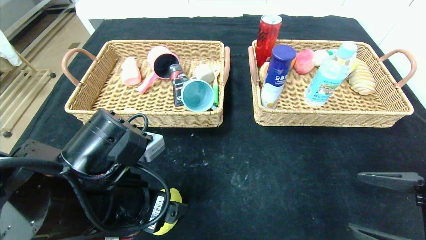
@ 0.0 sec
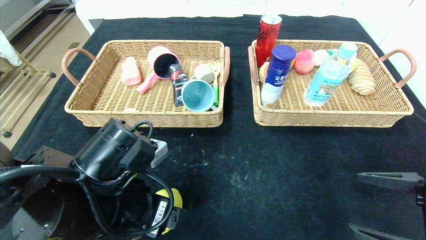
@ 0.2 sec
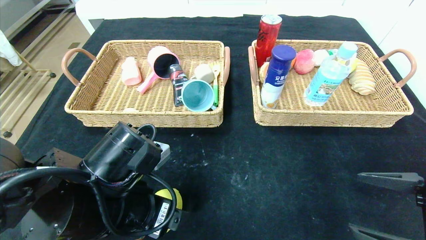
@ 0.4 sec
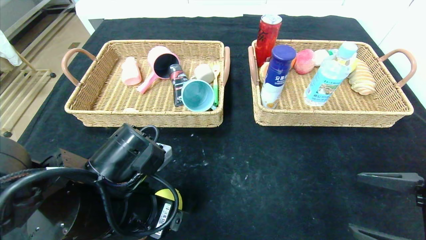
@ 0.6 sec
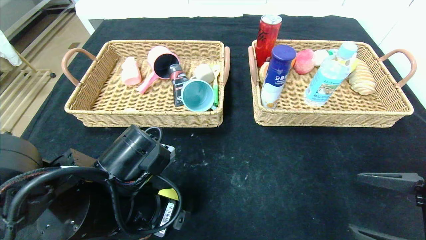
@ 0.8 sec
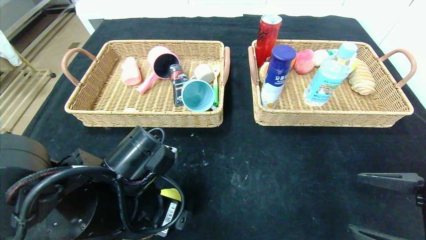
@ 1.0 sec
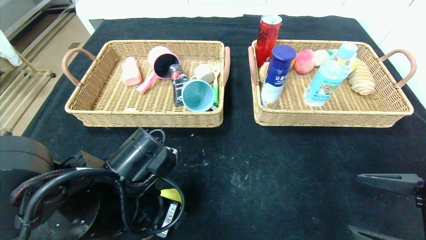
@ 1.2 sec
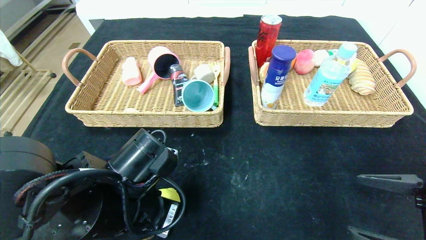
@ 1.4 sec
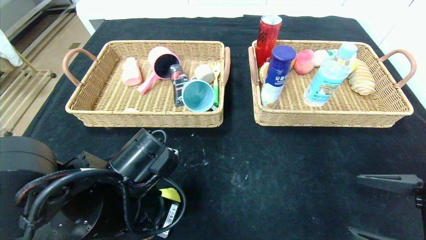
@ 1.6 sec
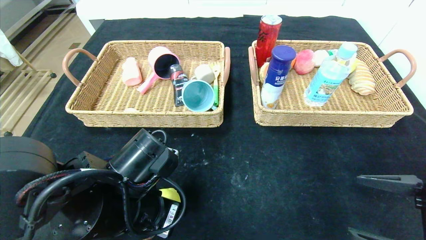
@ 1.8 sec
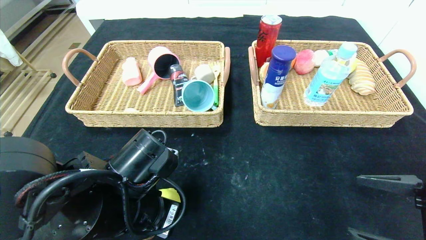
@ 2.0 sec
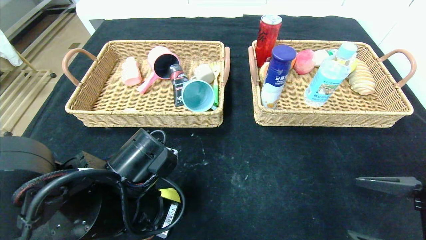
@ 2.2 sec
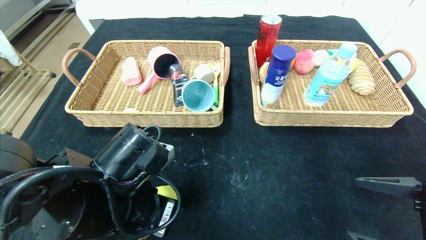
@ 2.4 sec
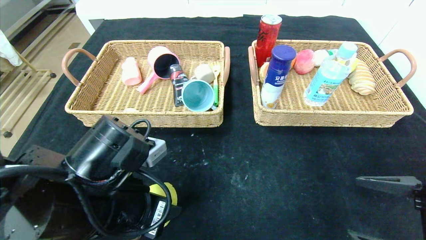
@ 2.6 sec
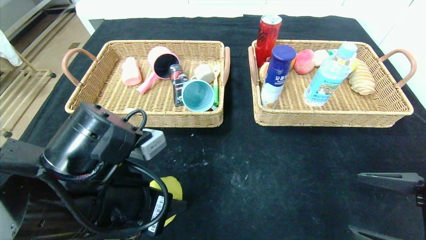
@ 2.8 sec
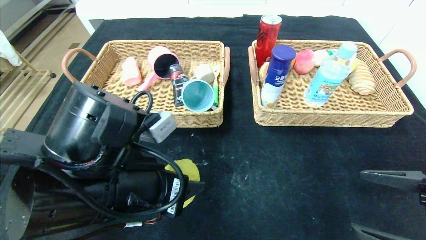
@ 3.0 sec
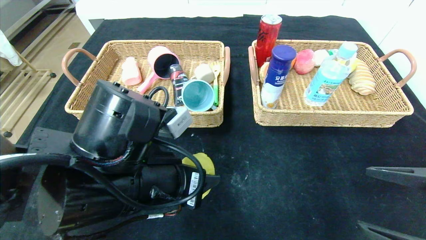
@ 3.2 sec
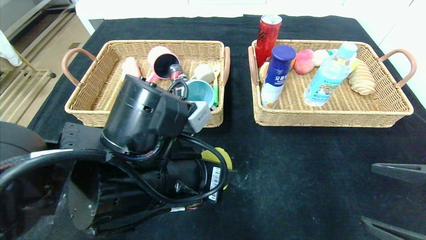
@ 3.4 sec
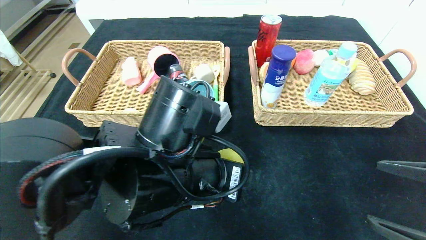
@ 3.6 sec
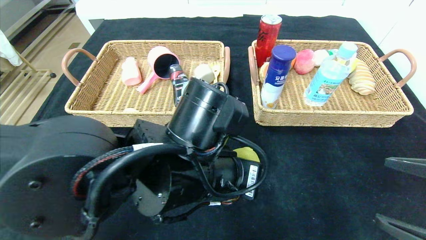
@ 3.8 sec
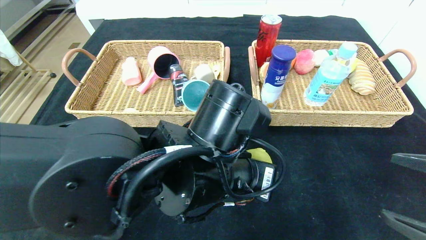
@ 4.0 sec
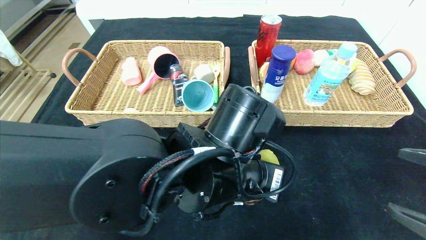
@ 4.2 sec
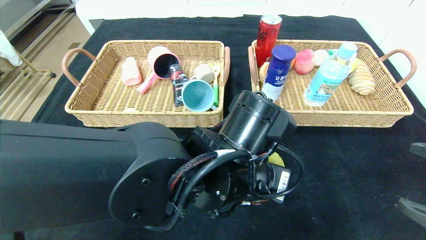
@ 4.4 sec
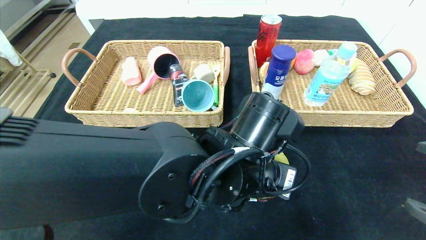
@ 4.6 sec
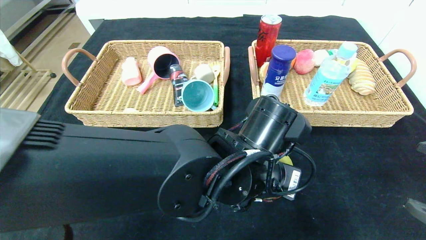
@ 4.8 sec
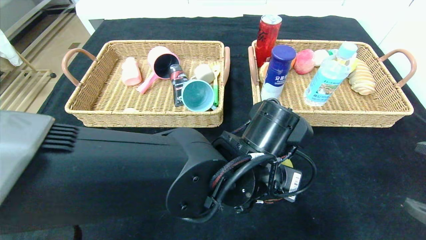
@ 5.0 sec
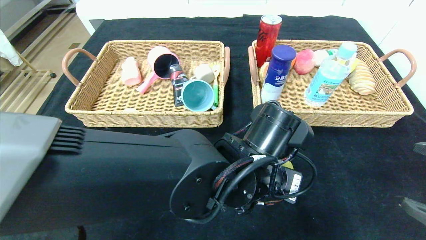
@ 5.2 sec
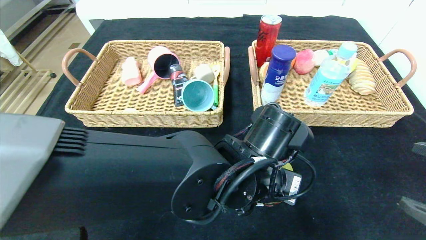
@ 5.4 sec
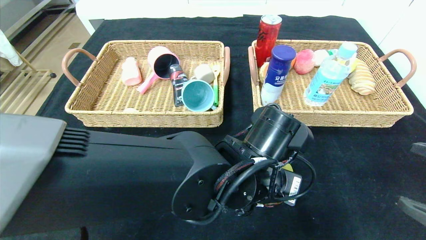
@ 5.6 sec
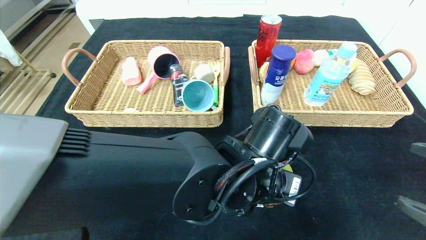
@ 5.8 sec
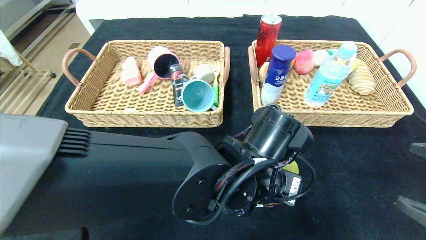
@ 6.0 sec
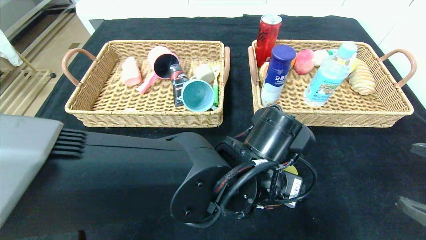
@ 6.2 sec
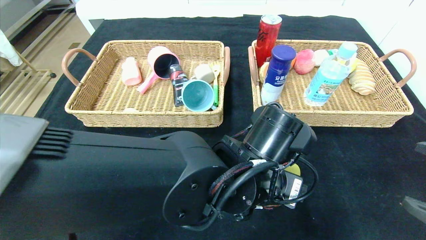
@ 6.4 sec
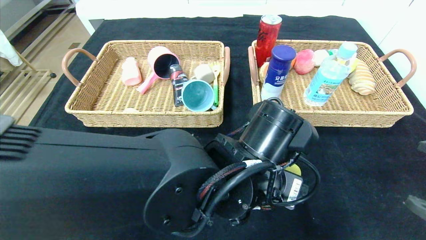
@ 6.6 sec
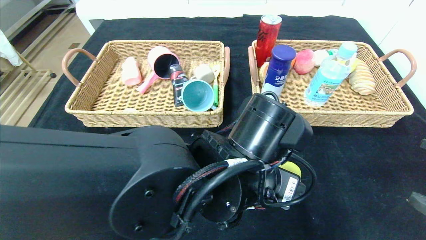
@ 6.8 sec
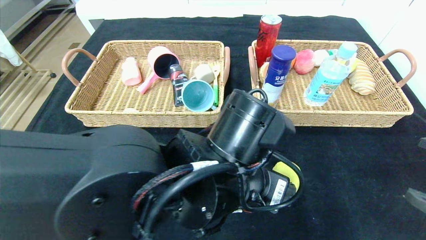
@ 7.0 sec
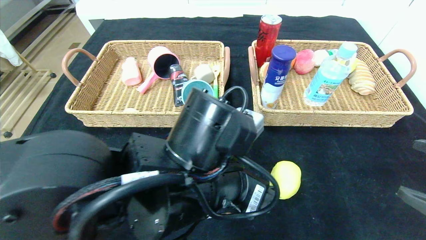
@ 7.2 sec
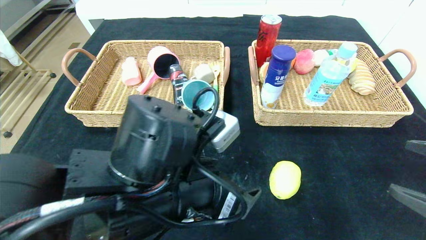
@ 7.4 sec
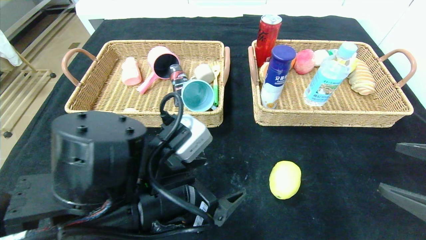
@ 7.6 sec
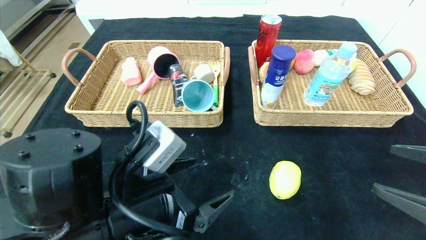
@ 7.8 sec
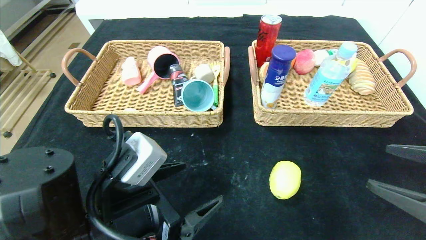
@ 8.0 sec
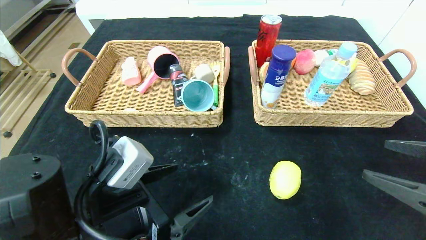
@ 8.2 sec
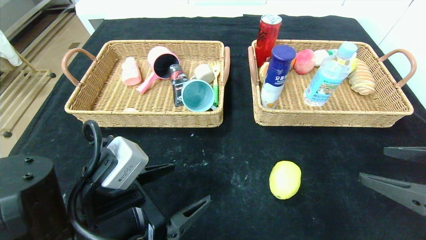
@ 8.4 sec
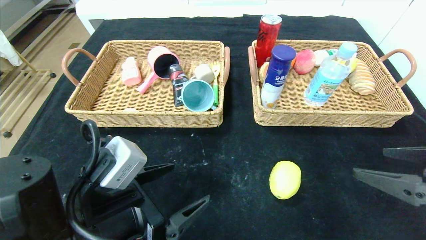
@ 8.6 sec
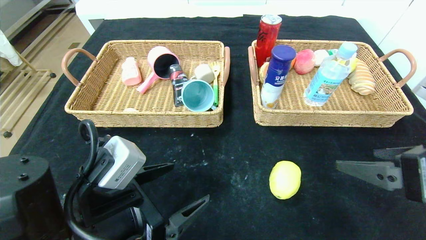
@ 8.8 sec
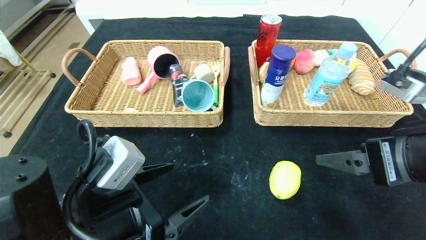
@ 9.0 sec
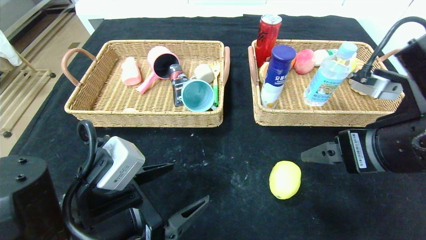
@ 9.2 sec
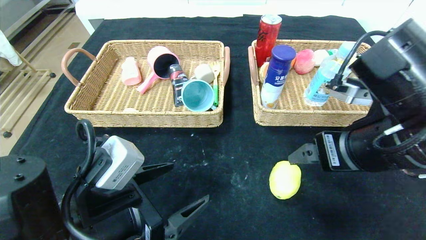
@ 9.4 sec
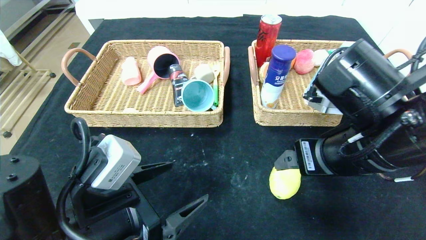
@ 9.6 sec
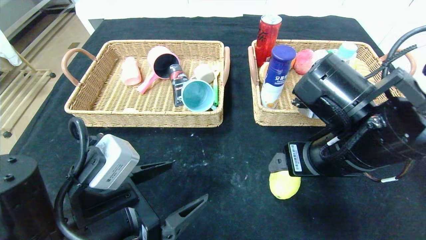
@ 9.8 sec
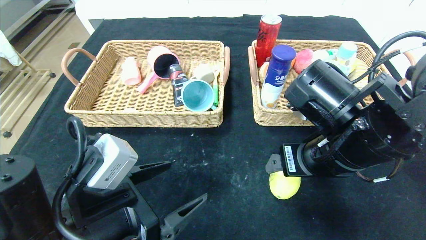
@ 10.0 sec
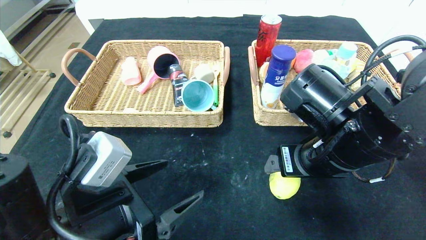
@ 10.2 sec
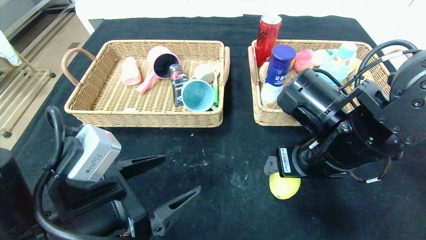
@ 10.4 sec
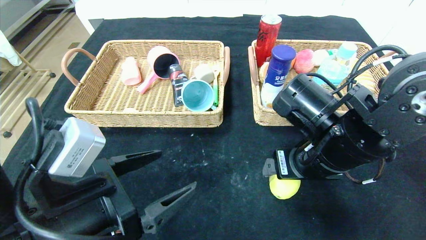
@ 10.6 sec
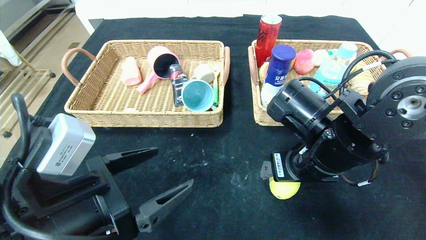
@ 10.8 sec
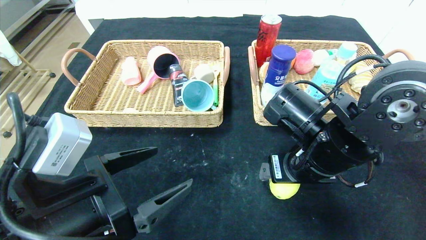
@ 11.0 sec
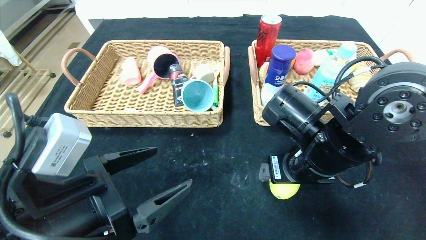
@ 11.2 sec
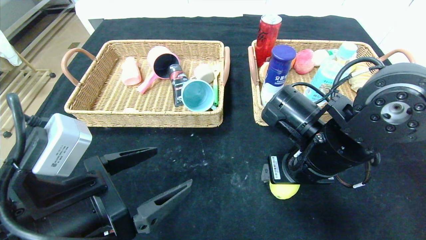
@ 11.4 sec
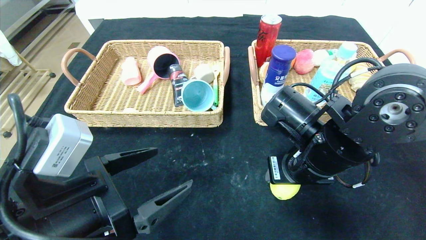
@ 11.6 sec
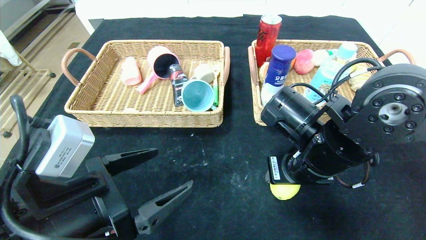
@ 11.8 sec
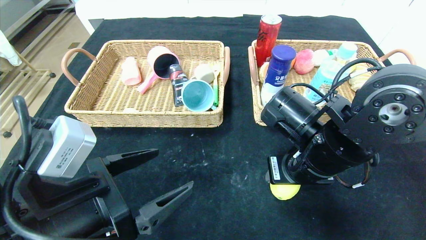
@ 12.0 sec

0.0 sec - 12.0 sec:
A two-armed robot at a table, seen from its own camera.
Step, 0.0 sec - 7.4 sec: Place the lemon and put it in the center of the table.
0.0 sec - 1.6 sec: The left gripper closes its fingers.
1.6 sec - 3.0 sec: The left gripper moves upward, some 5 cm.
3.0 sec - 4.4 sec: The left gripper shifts about 15 cm to the right.
4.4 sec - 6.0 sec: The grippers stay close to where they were, moving slightly.
6.0 sec - 7.6 sec: The left gripper travels to the left and backward by about 15 cm.
7.6 sec - 9.0 sec: The right gripper travels to the left and forward by approximately 10 cm, while the left gripper is displaced to the left by approximately 5 cm.
9.0 sec - 10.4 sec: The right gripper goes about 10 cm to the left and forward.
10.4 sec - 12.0 sec: The right gripper closes up.

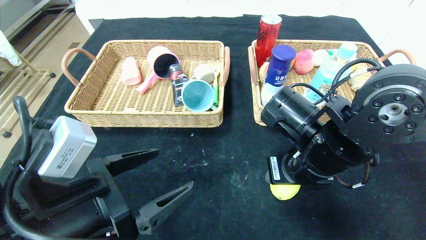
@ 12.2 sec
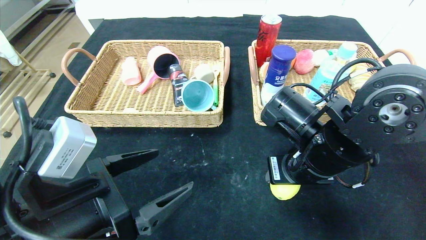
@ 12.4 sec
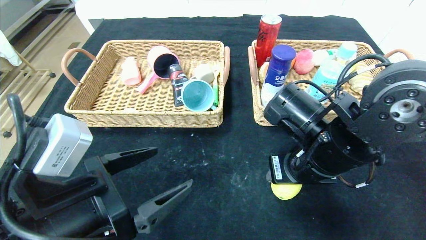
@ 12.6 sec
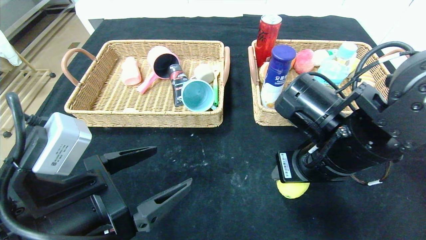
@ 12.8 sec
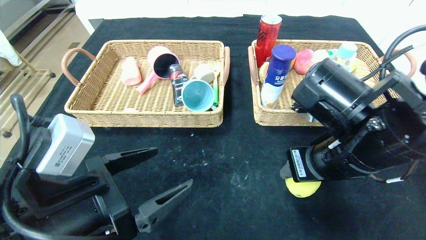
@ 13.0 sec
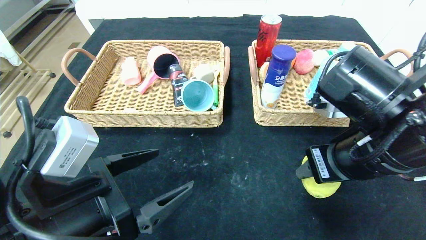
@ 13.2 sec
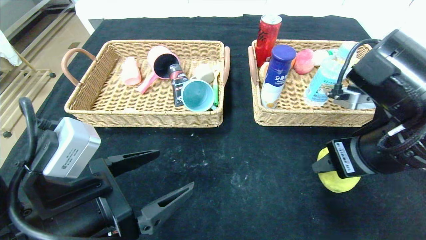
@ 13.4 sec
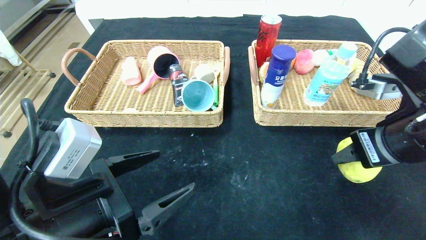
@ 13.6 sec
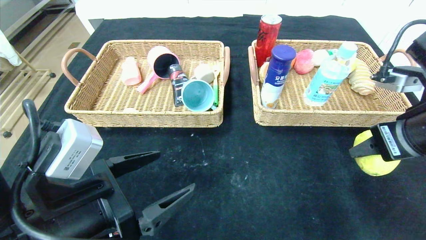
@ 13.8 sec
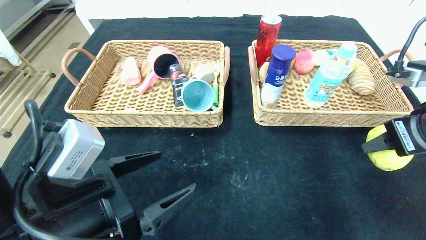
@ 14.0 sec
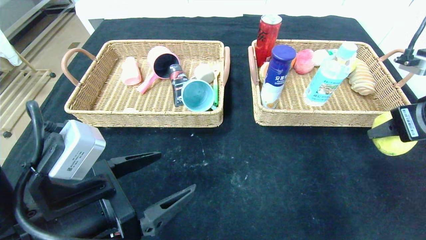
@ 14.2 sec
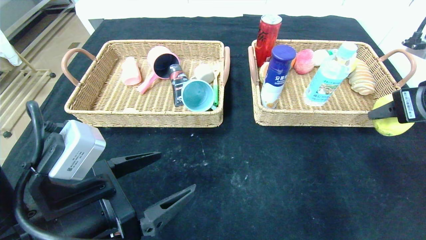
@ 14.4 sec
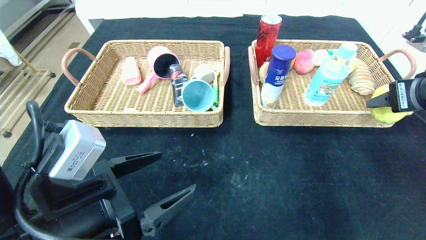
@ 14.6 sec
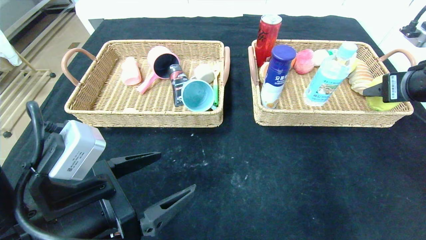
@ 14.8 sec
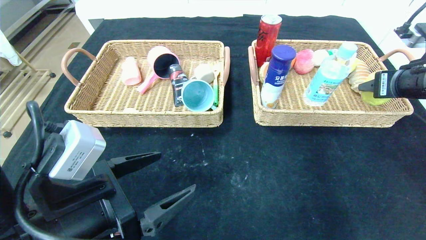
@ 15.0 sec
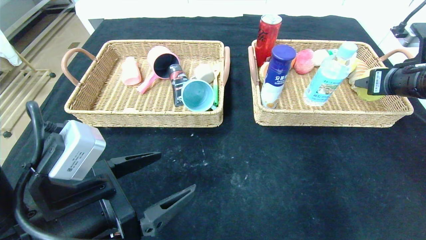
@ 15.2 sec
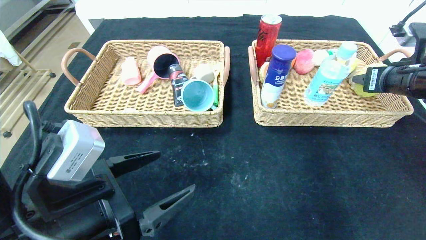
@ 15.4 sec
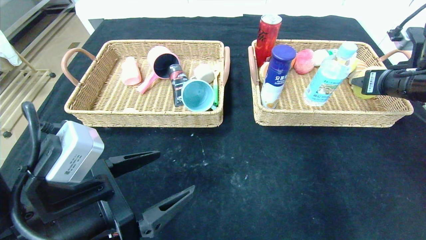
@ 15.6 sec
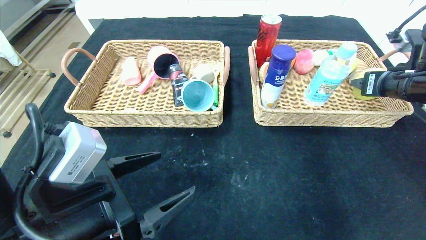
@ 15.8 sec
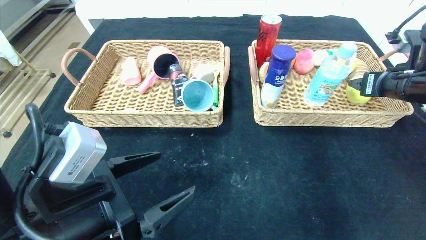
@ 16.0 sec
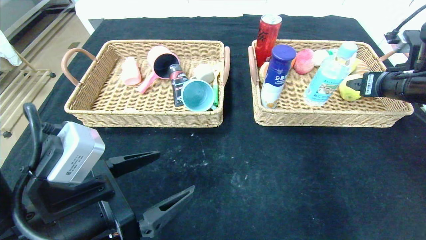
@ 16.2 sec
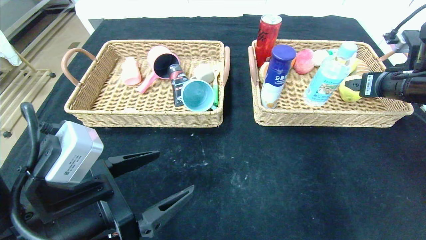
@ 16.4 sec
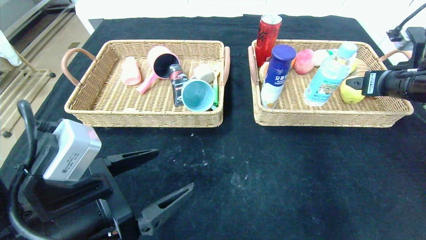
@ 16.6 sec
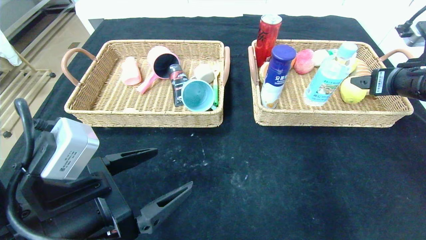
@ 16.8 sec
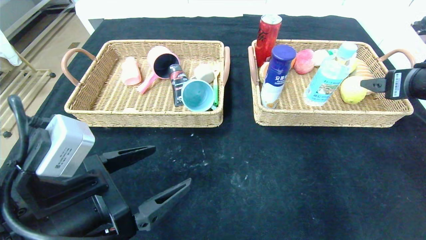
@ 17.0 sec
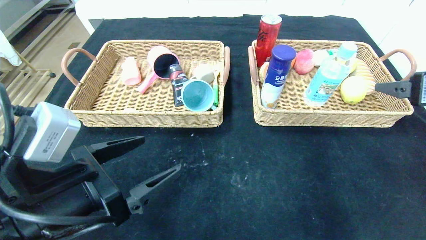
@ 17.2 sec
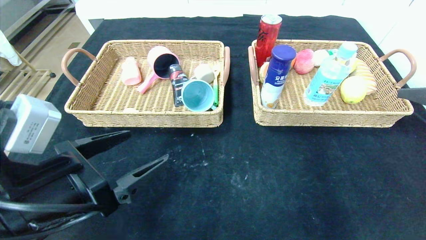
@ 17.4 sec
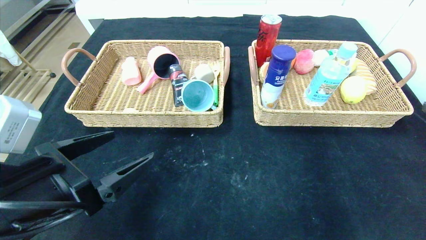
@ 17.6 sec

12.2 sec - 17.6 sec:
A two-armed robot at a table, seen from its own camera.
12.2 sec - 13.6 sec: The right gripper travels to the right and upward by some 10 cm.
13.6 sec - 15.0 sec: The right gripper goes about 15 cm to the right and forward.
15.0 sec - 16.2 sec: The grippers stay close to where they were, moving slightly.
16.2 sec - 17.6 sec: The right gripper shifts approximately 20 cm backward.
